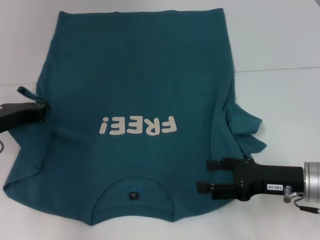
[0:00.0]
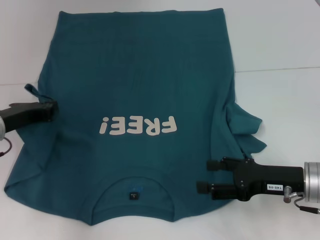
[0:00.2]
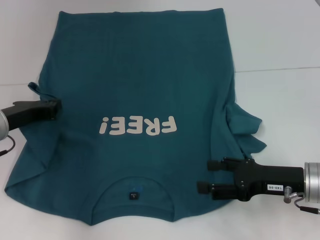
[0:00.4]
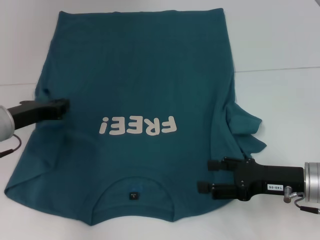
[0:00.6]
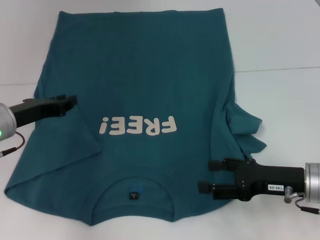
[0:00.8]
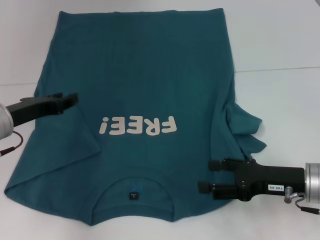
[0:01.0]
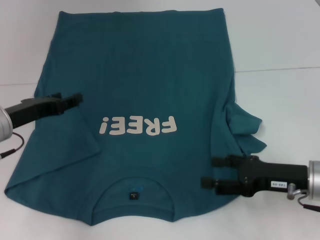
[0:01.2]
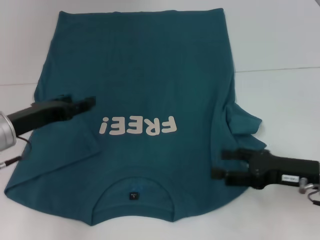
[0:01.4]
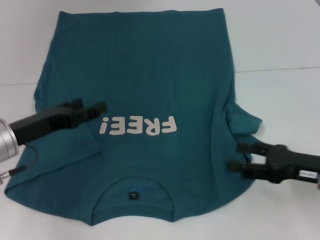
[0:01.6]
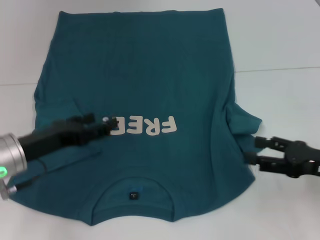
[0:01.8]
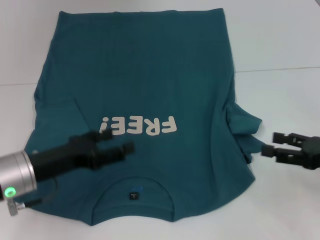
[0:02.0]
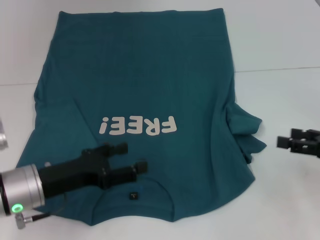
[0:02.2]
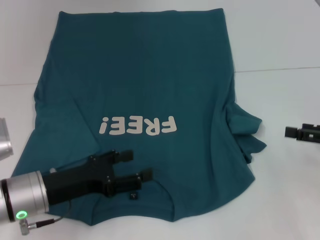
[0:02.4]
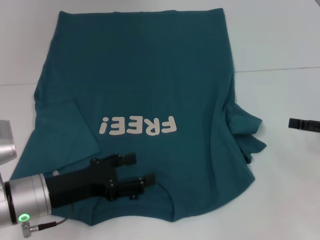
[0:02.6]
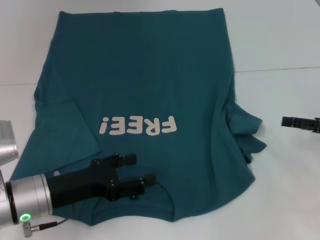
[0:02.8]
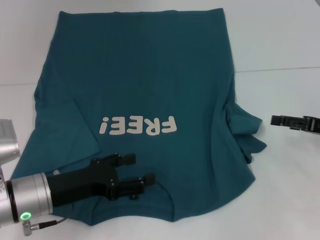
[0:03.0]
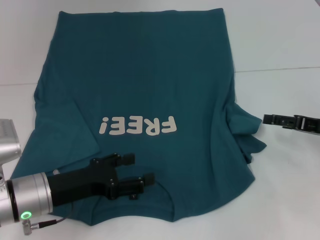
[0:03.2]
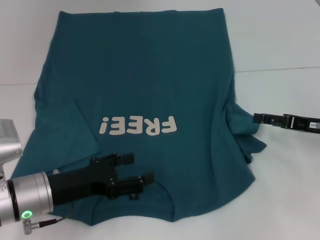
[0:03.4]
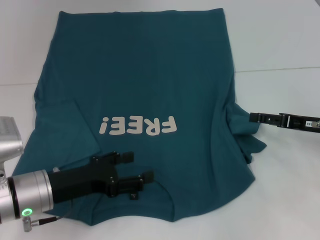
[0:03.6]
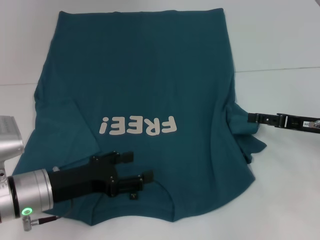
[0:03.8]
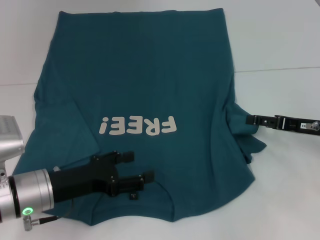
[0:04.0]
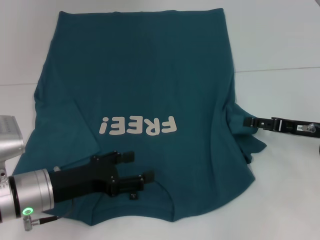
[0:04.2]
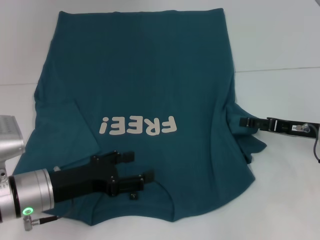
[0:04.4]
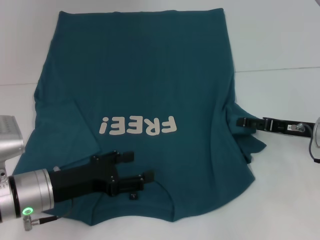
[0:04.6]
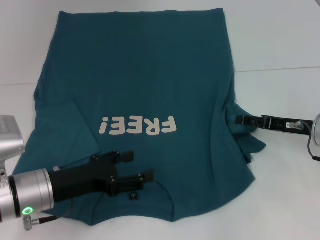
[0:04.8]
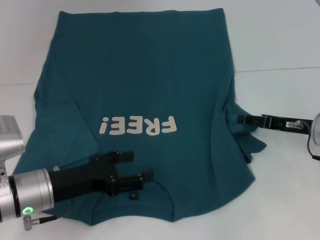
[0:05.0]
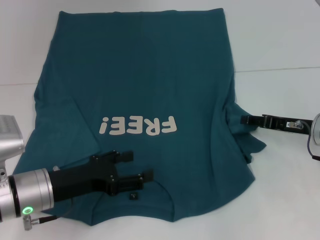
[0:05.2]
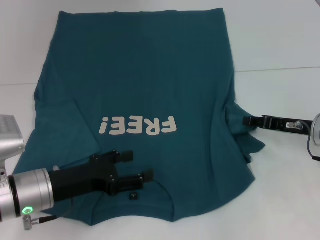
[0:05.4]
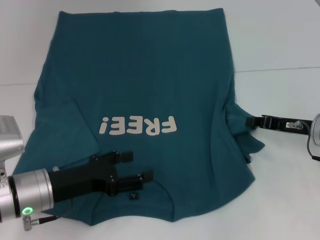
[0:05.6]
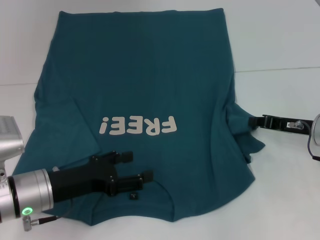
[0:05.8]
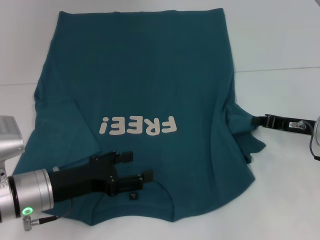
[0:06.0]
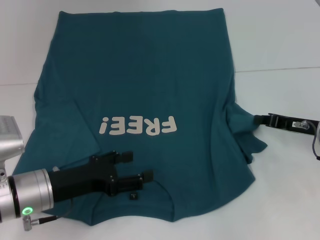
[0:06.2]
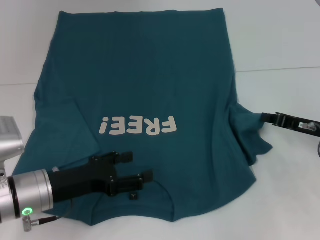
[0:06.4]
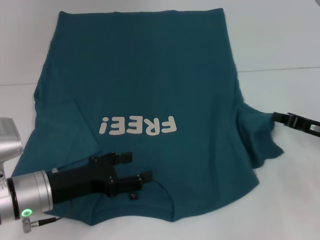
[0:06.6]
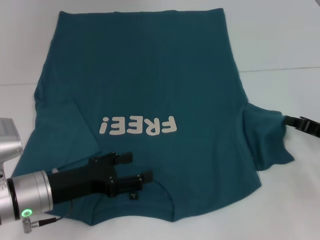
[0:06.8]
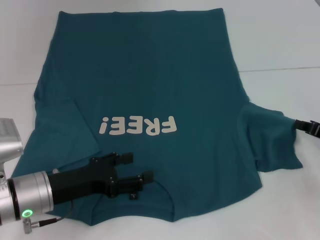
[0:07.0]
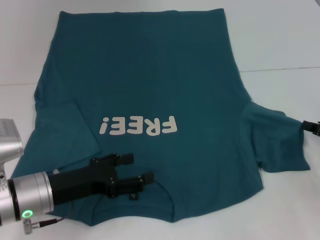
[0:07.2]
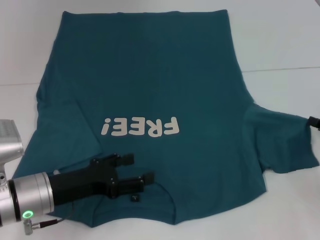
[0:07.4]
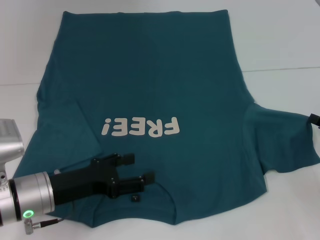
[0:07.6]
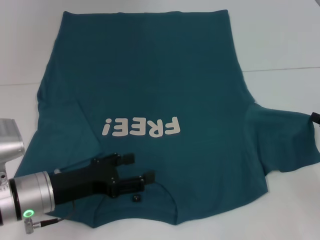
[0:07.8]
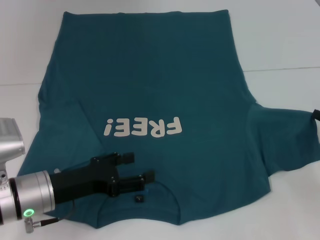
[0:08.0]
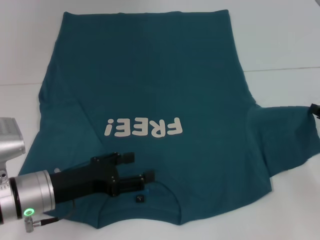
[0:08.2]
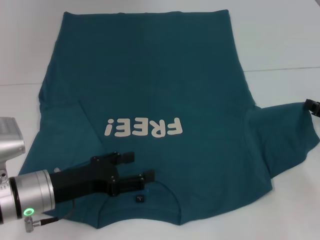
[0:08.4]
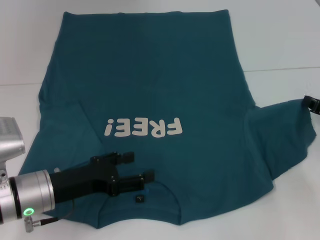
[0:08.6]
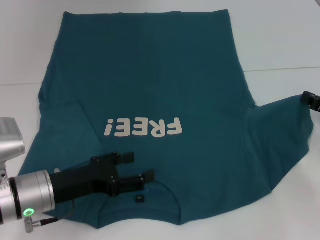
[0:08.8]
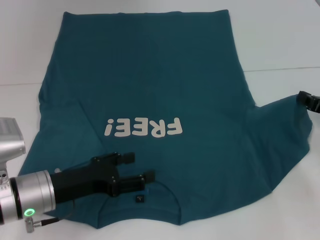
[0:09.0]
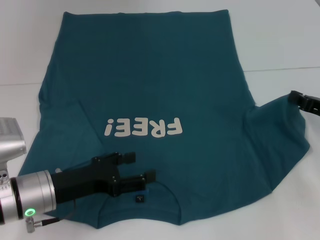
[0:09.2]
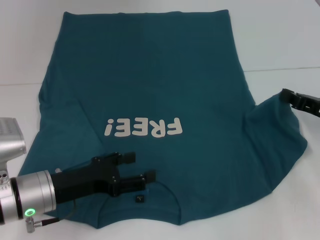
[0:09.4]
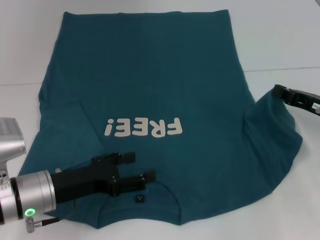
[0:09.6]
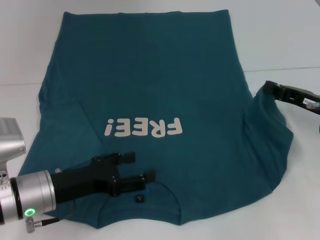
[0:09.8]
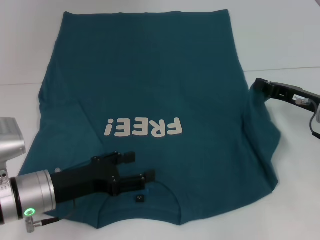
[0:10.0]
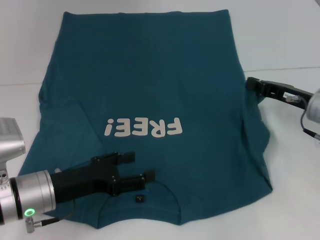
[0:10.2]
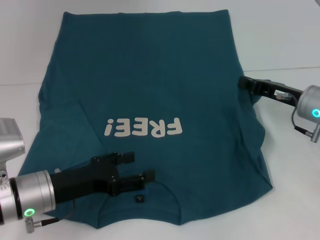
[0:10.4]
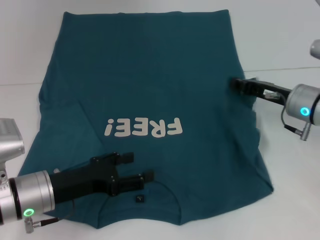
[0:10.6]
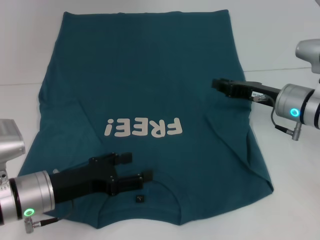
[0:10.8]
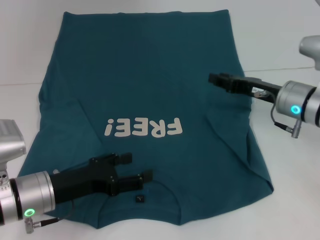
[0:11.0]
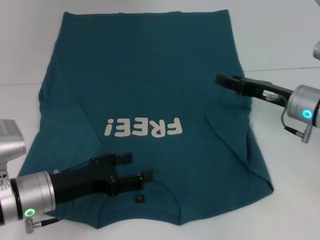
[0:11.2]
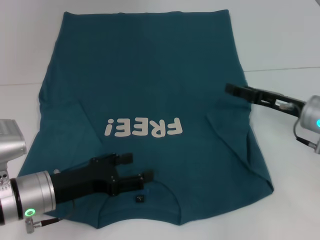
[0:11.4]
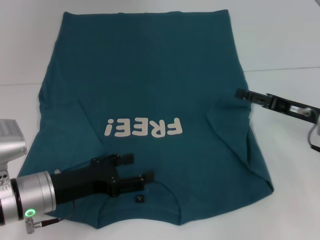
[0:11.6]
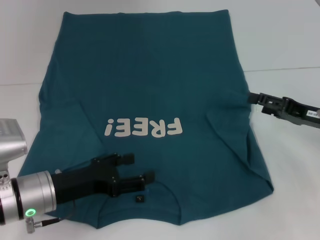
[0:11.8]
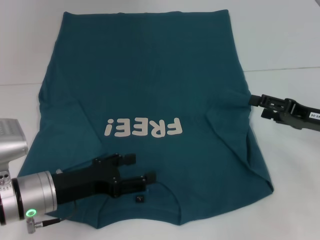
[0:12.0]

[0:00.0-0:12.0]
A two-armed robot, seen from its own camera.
0:00.0 to 0:01.6: The left gripper opens.
0:01.6 to 0:03.0: The right gripper moves to the right and forward, approximately 10 cm. The left gripper ends up roughly 10 cm from where it was.
0:03.0 to 0:04.4: The right gripper shifts by about 5 cm.
0:04.4 to 0:06.0: The right gripper closes its fingers.
0:06.0 to 0:07.6: The right gripper moves to the right and backward, some 10 cm.
0:07.6 to 0:09.0: The grippers move only a little.
0:09.0 to 0:10.4: The right gripper moves to the left, about 10 cm.
0:10.4 to 0:12.0: The right gripper ends up some 5 cm from where it was, and opens its fingers.

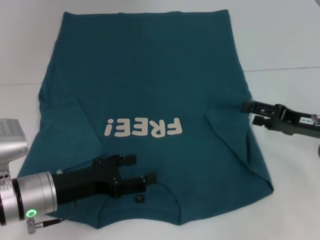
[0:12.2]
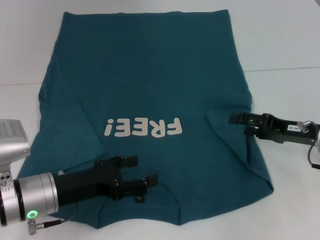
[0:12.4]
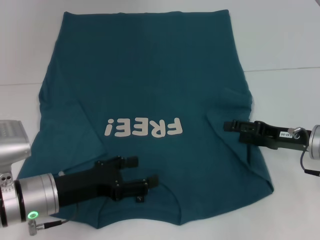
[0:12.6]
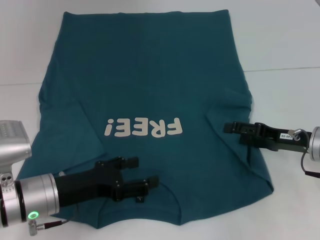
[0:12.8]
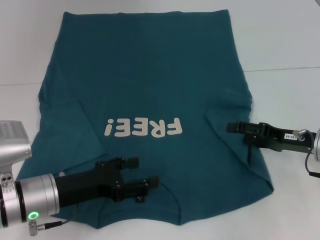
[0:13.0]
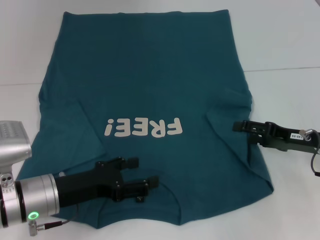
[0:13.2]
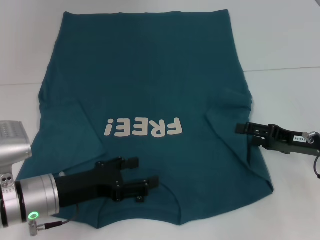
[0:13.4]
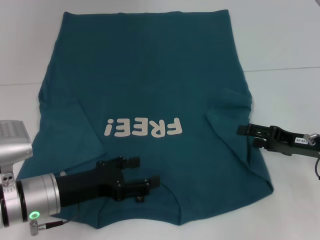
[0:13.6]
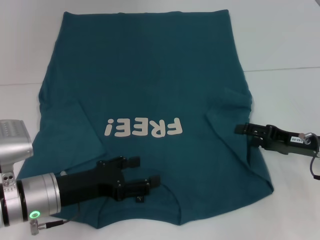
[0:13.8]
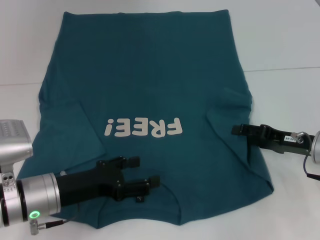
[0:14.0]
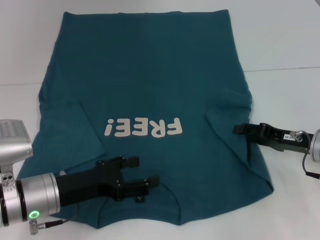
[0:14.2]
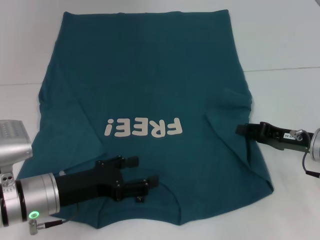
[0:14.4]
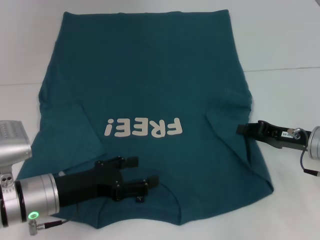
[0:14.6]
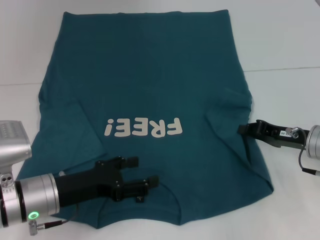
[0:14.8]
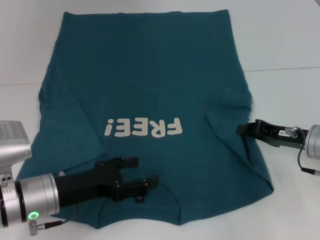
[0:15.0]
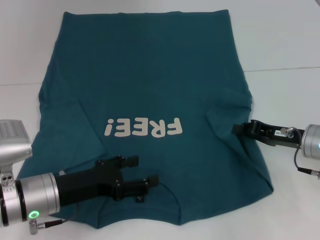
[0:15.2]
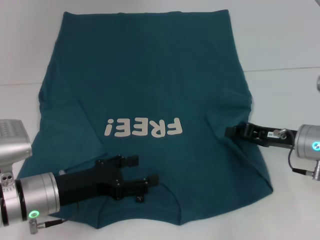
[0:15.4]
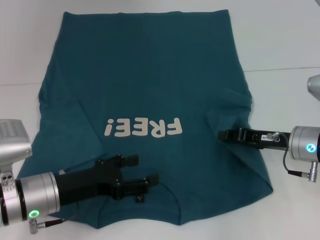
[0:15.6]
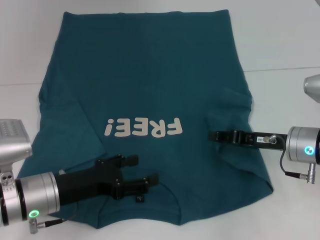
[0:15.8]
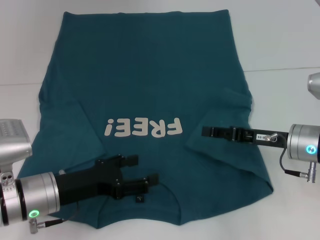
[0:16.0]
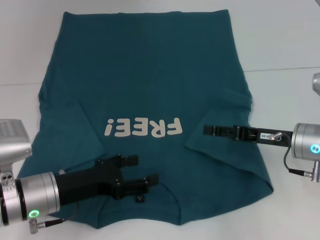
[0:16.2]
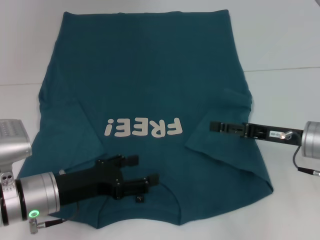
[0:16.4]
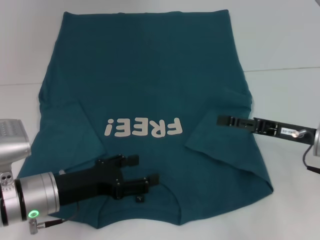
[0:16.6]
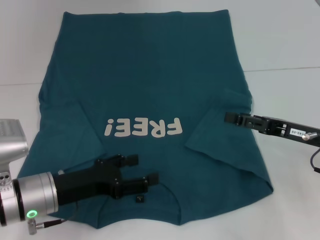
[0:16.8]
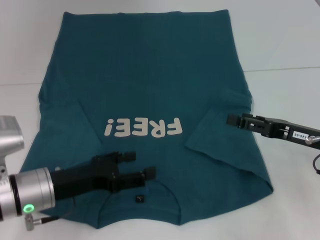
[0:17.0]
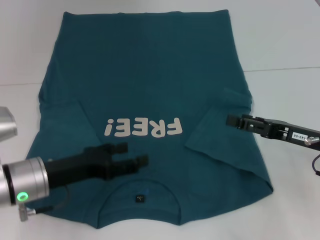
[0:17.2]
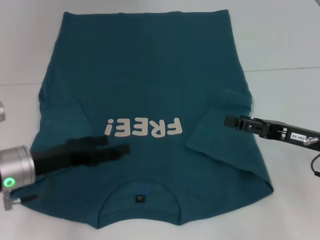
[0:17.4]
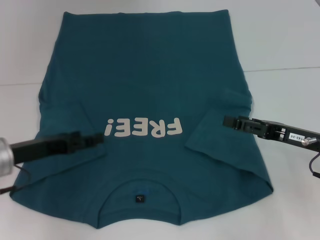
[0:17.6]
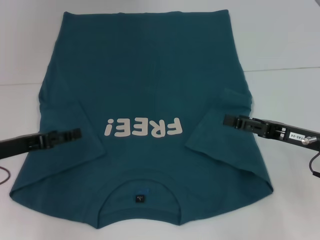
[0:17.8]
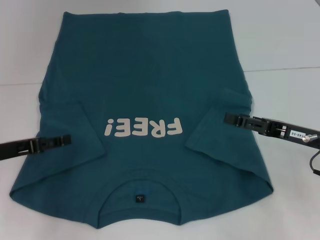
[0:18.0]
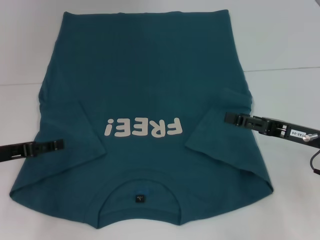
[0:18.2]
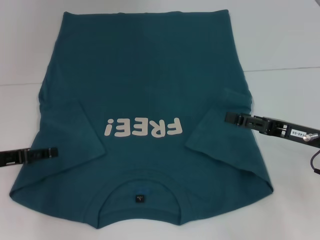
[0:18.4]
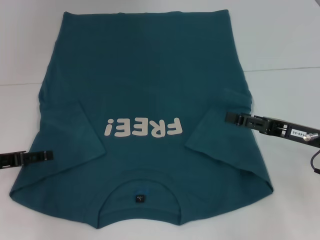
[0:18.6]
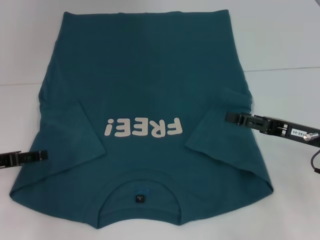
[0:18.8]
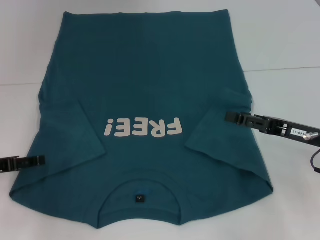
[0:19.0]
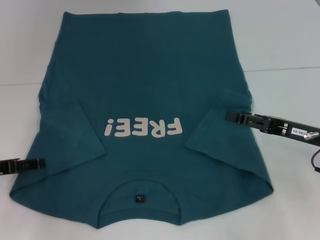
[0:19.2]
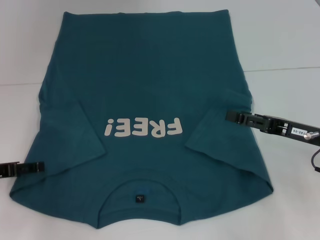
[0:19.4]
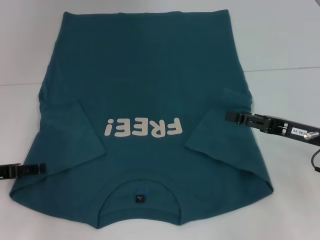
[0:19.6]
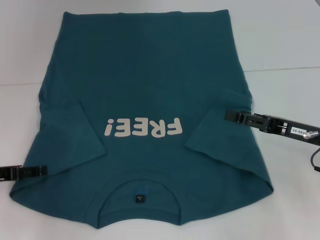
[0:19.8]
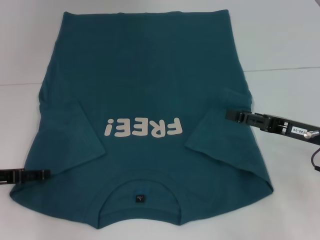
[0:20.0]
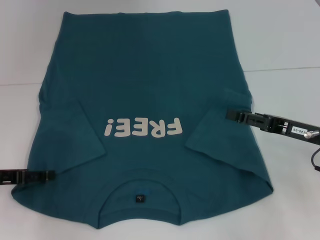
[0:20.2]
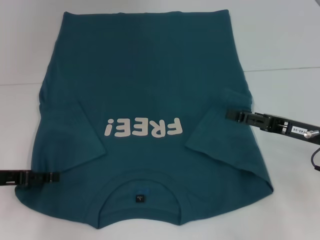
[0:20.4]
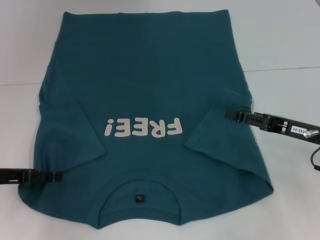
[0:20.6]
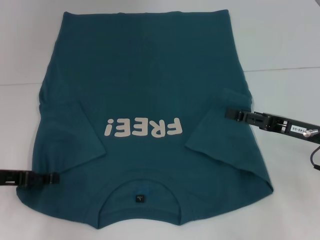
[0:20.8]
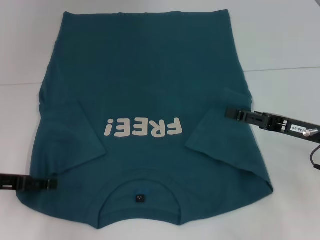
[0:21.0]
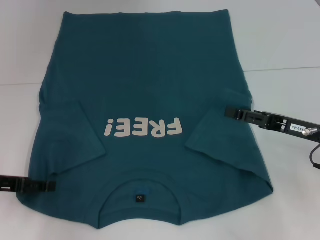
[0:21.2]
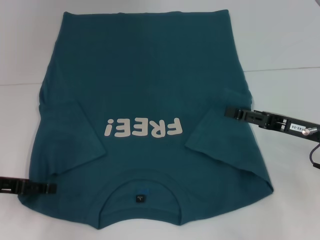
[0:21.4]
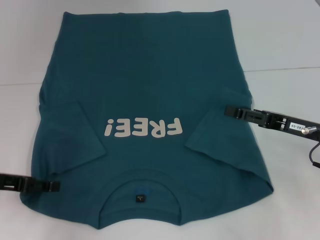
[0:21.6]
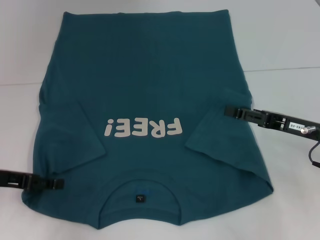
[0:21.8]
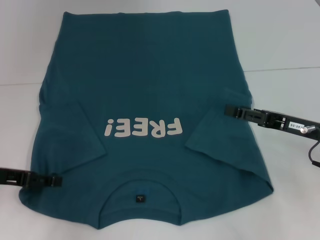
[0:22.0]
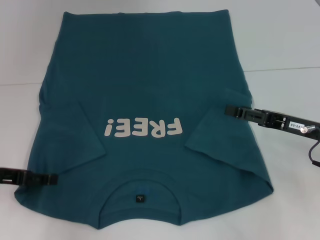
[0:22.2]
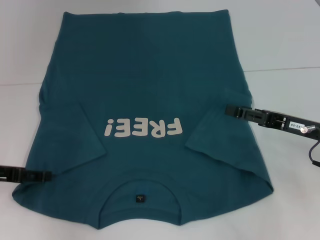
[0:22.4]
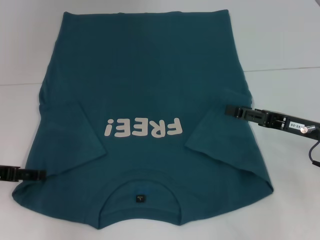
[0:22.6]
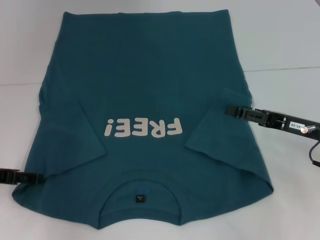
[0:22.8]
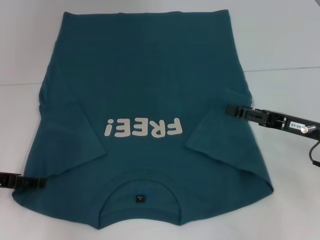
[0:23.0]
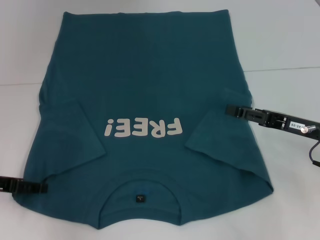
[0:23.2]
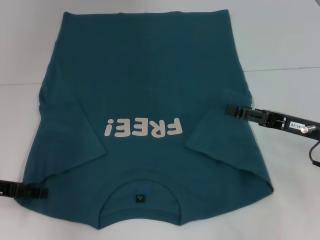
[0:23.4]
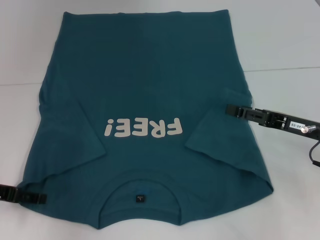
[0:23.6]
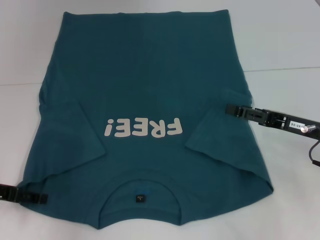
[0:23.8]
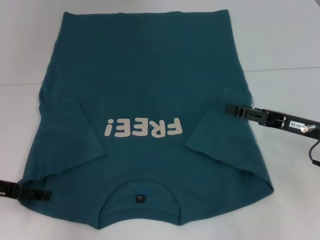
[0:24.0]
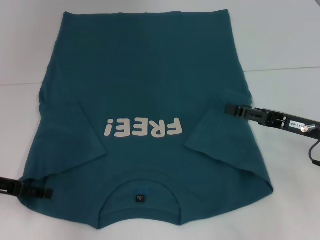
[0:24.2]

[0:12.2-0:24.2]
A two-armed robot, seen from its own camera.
Step, 0:12.2 to 0:16.8: Fold the bottom right sleeve to the right.
0:12.2 to 0:13.8: The grippers make only small movements.
0:13.8 to 0:15.2: The right gripper closes its fingers.
0:15.2 to 0:16.6: The right gripper opens.
0:16.6 to 0:18.2: The left gripper is displaced to the left by roughly 10 cm.
0:18.2 to 0:22.6: The grippers stay close to where they were, moving slightly.
0:22.6 to 0:24.2: The grippers stay close to where they were, moving slightly.
